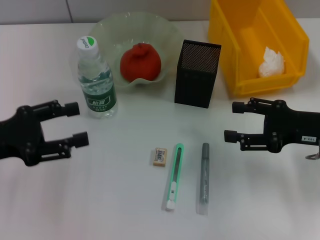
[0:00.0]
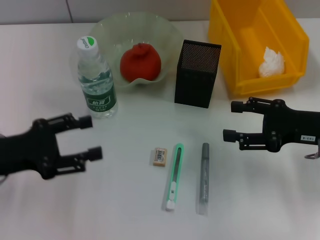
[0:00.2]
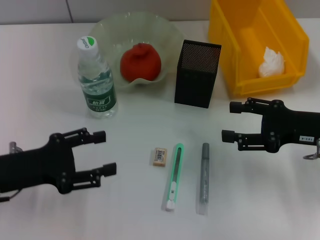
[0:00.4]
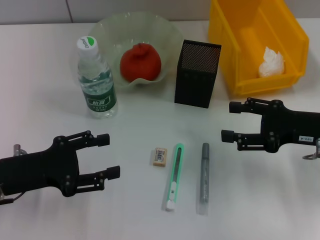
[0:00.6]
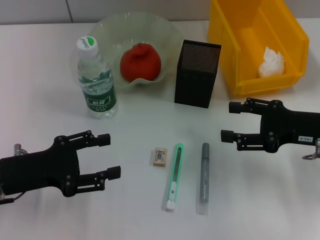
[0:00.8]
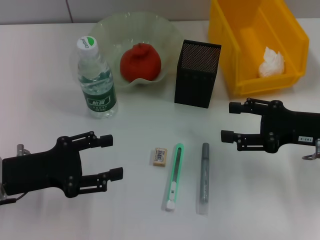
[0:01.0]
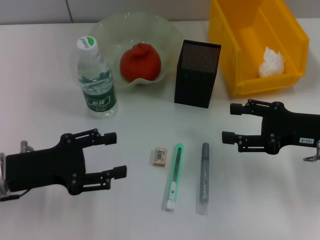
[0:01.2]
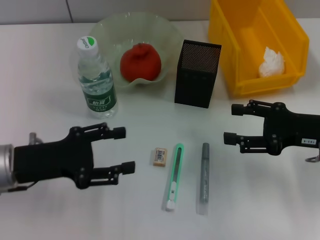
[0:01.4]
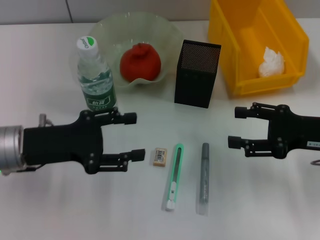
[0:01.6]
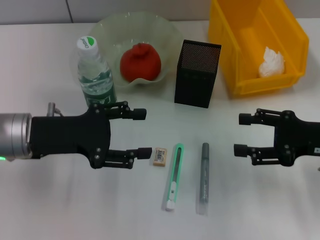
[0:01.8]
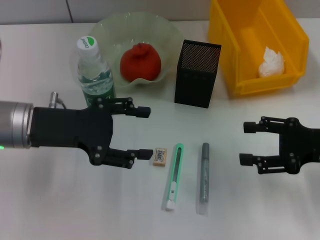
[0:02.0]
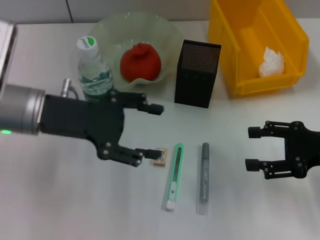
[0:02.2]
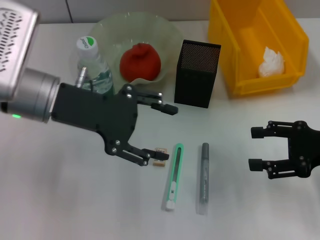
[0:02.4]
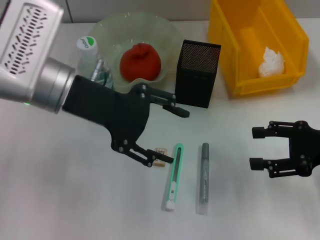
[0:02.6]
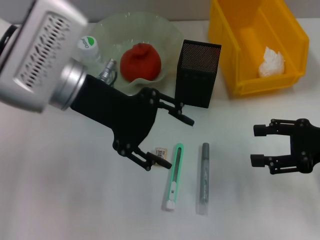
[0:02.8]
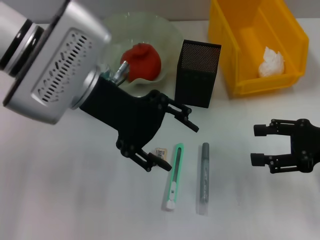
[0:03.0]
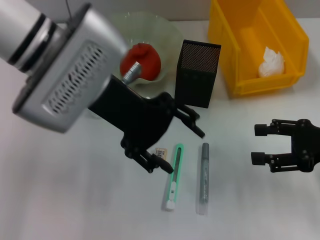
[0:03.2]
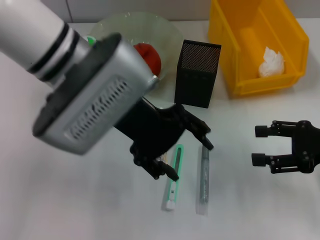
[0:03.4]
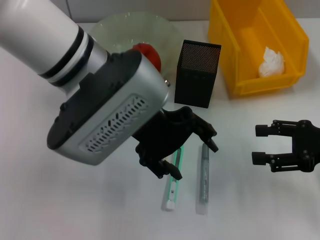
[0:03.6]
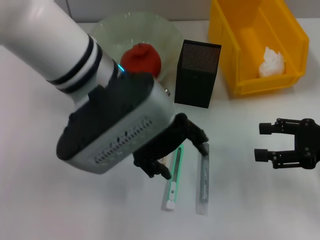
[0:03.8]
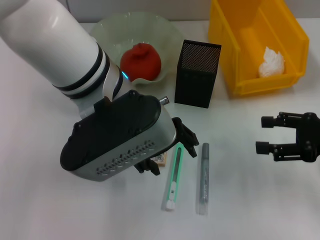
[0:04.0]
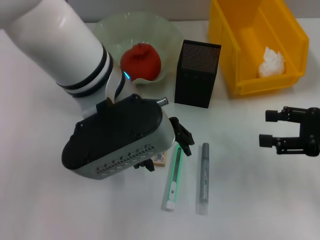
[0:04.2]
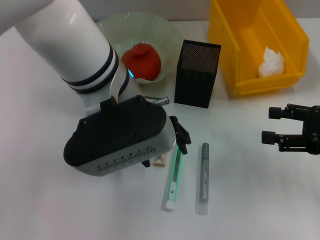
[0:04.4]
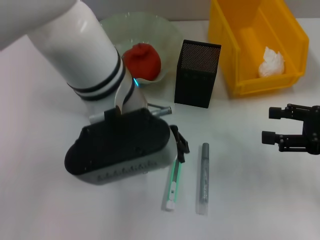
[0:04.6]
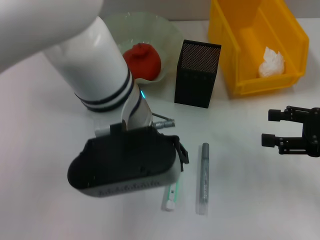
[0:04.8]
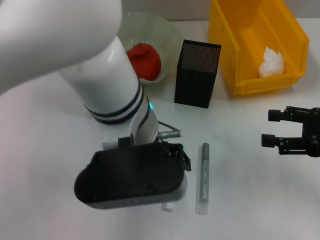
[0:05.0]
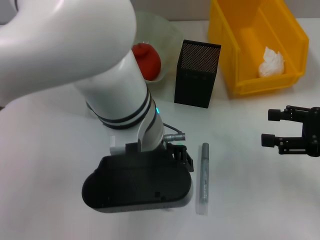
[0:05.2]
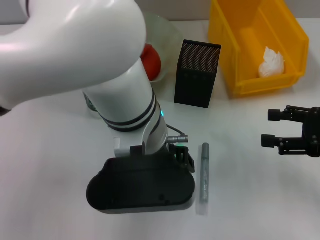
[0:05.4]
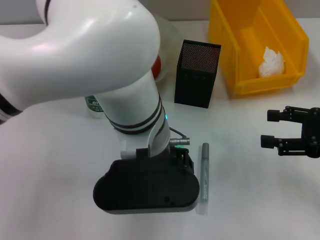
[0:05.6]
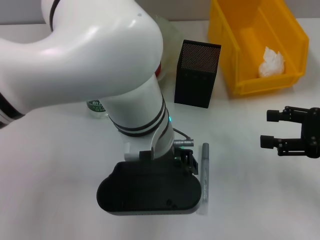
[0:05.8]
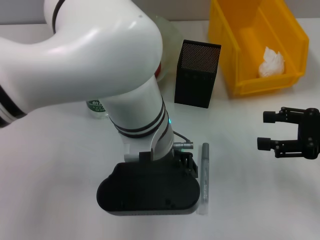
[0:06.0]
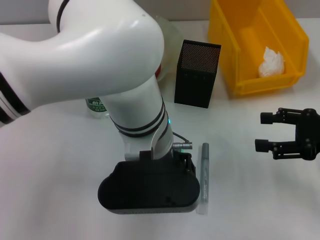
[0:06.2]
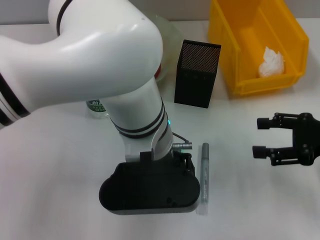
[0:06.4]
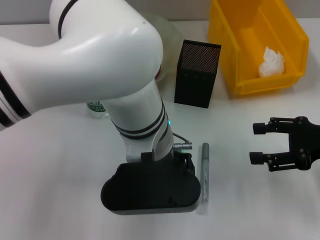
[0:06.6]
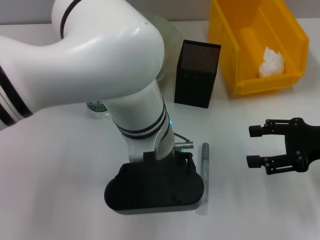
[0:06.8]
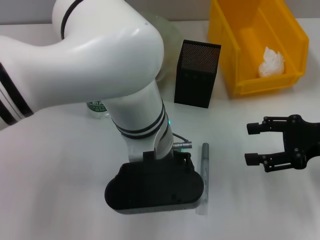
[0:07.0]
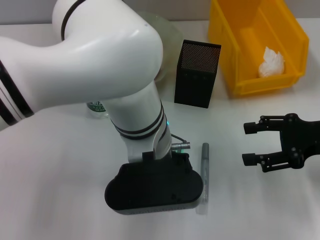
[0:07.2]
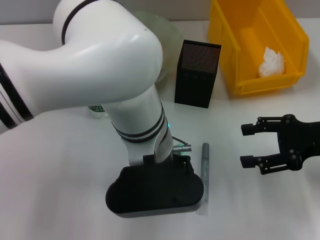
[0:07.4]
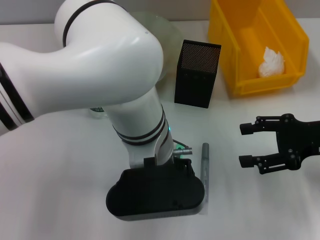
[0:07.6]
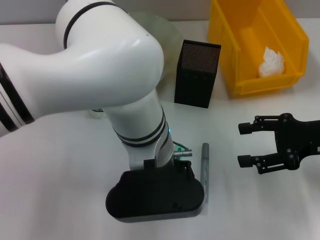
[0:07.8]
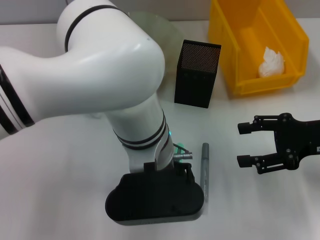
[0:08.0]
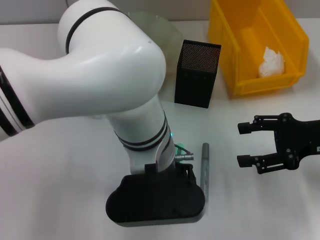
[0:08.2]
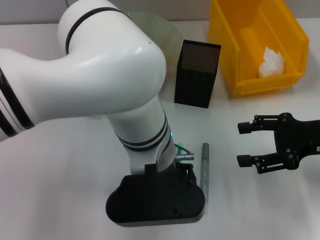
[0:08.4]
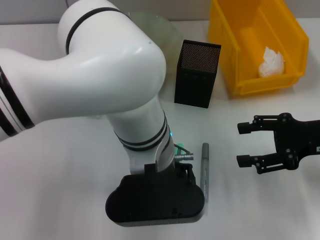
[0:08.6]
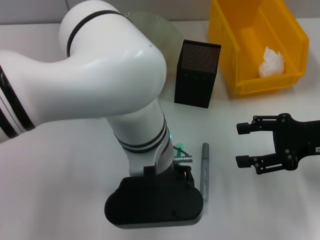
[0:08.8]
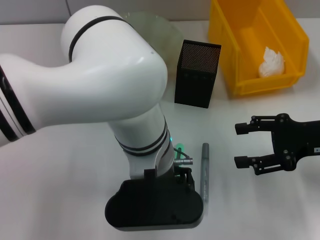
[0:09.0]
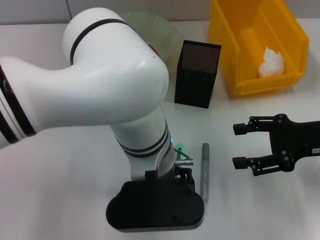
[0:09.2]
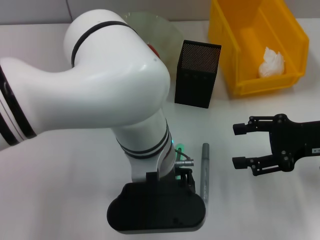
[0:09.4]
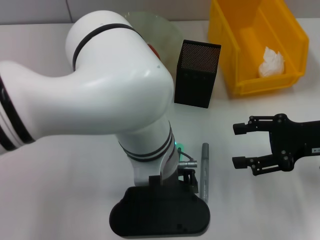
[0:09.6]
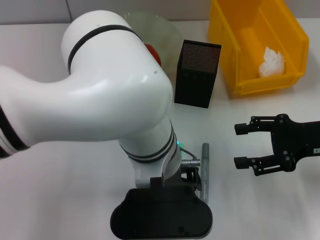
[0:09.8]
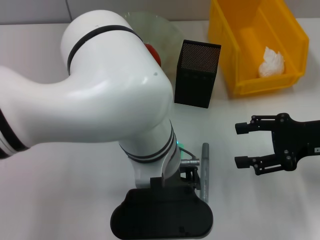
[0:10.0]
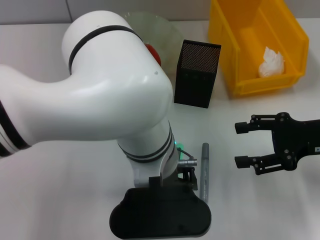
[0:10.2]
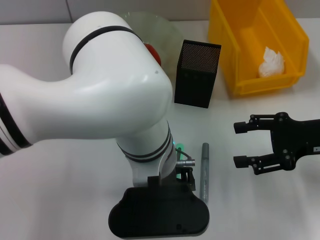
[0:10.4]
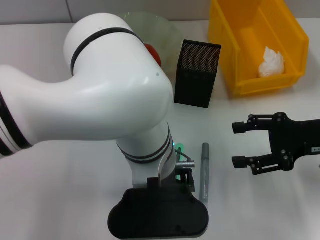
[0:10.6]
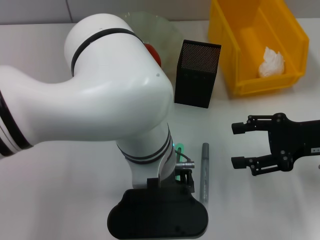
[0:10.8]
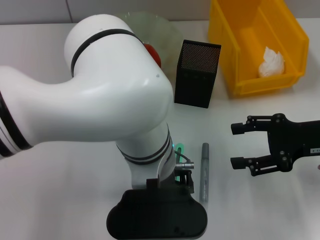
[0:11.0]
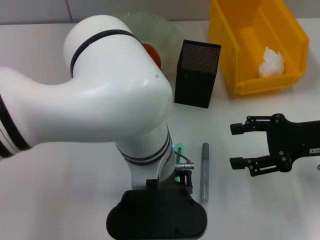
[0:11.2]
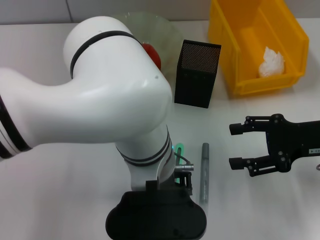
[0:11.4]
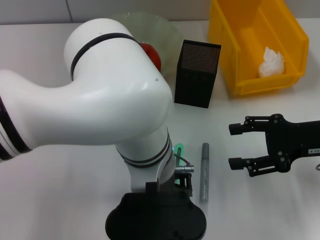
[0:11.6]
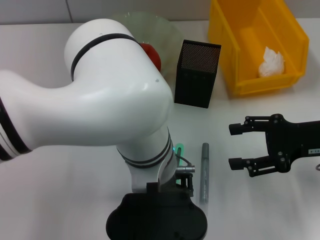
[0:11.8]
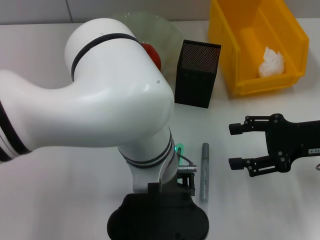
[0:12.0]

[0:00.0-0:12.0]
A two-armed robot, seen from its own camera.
0:00.0 to 0:01.6: The left gripper is displaced to the right by some 5 cm.
0:01.6 to 0:03.0: The left gripper shifts about 15 cm upward, to the right and forward.
0:03.0 to 0:04.4: The left gripper heads to the right, covering roughly 5 cm.
0:04.4 to 0:06.0: The left gripper shifts by about 5 cm.
0:10.4 to 0:12.0: Both grippers stay put.

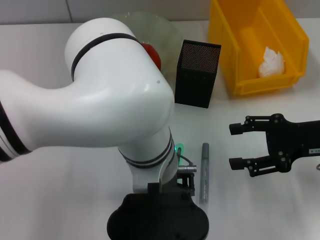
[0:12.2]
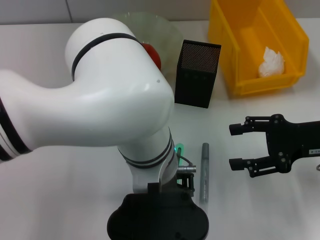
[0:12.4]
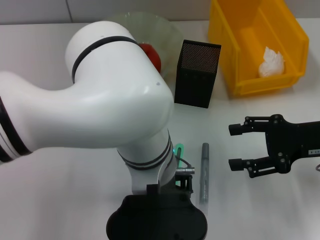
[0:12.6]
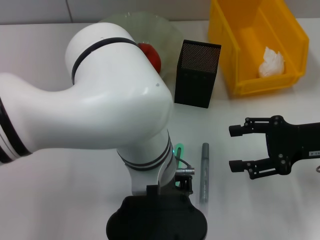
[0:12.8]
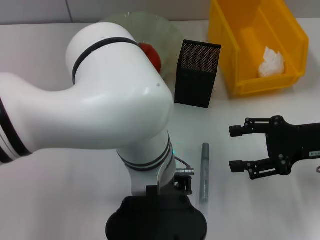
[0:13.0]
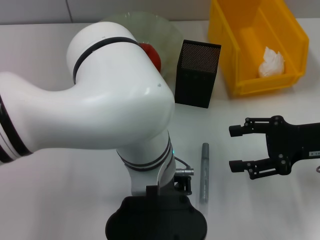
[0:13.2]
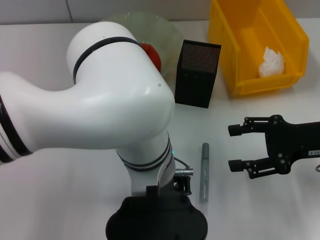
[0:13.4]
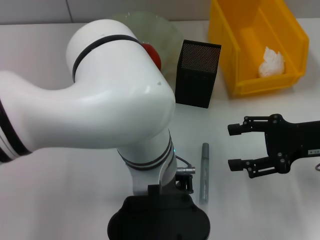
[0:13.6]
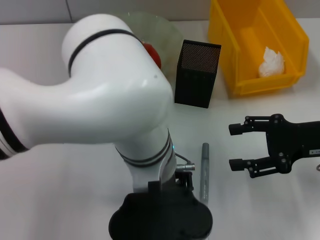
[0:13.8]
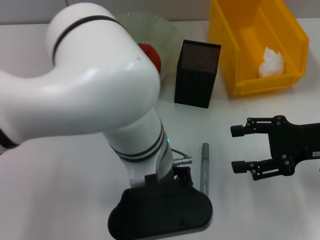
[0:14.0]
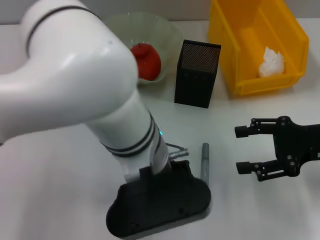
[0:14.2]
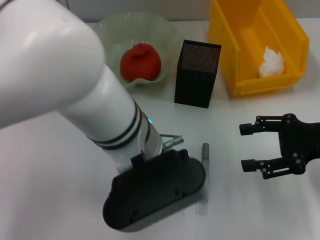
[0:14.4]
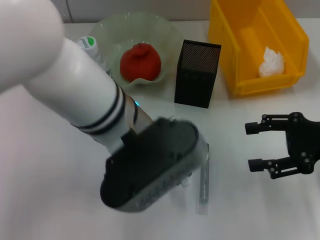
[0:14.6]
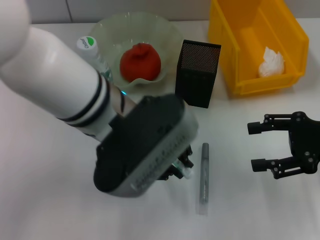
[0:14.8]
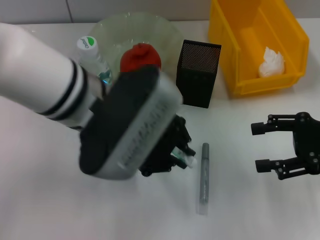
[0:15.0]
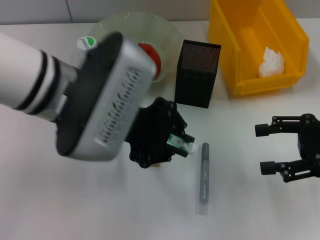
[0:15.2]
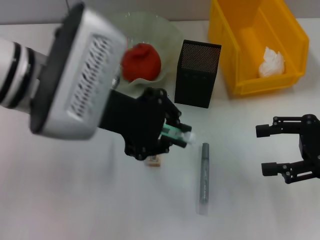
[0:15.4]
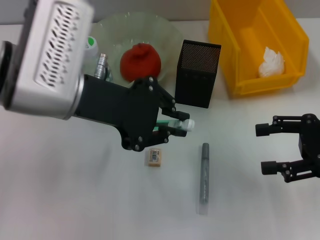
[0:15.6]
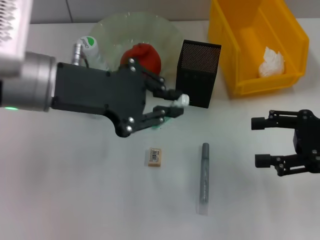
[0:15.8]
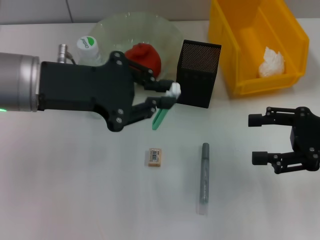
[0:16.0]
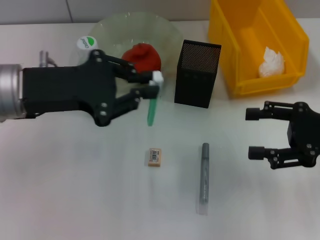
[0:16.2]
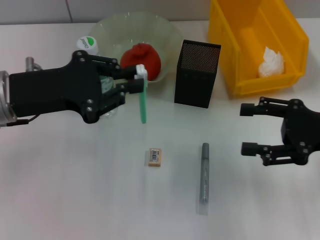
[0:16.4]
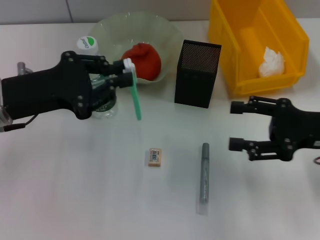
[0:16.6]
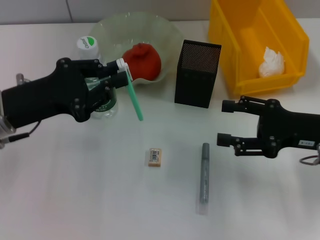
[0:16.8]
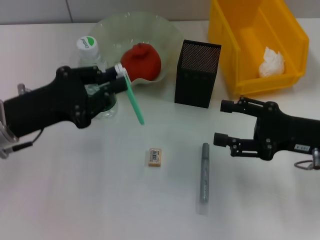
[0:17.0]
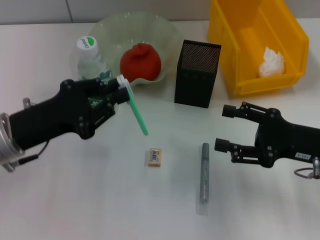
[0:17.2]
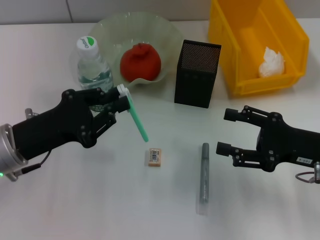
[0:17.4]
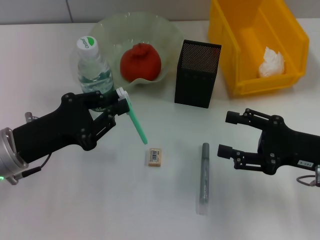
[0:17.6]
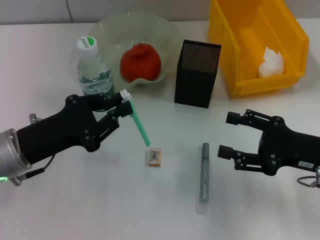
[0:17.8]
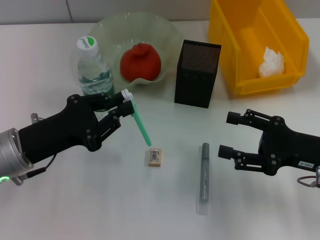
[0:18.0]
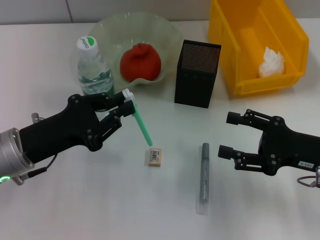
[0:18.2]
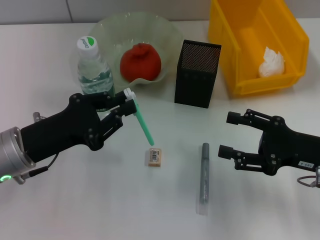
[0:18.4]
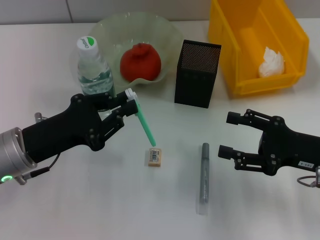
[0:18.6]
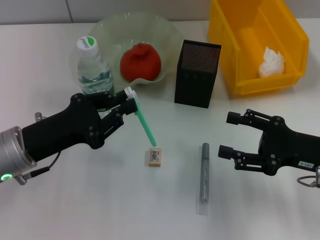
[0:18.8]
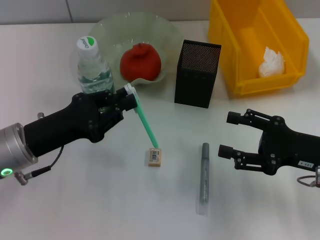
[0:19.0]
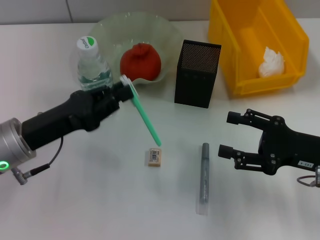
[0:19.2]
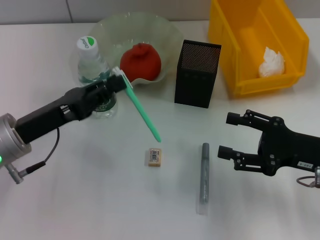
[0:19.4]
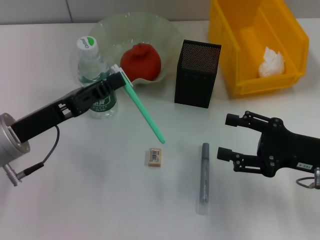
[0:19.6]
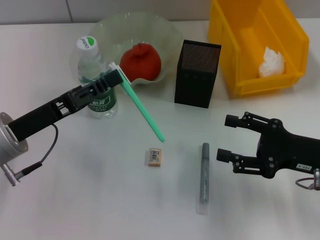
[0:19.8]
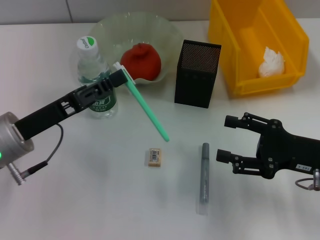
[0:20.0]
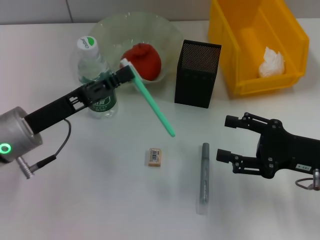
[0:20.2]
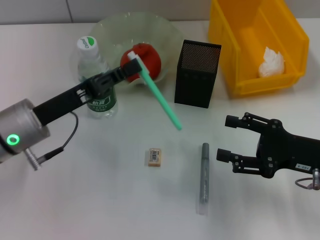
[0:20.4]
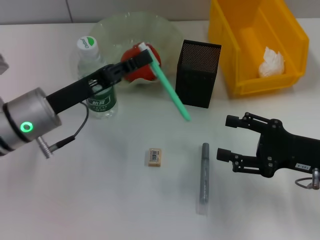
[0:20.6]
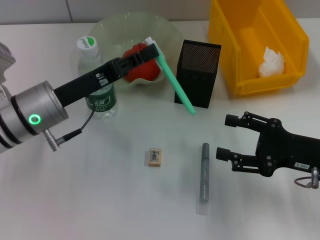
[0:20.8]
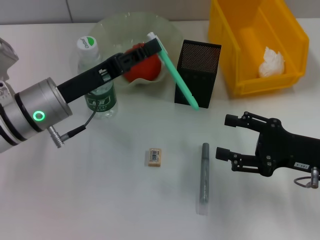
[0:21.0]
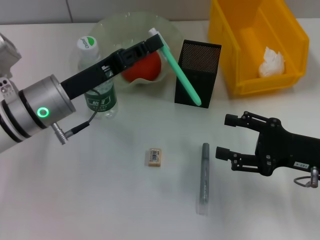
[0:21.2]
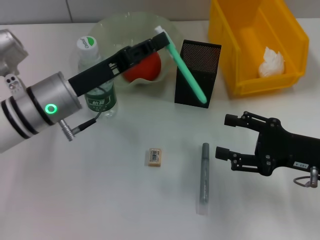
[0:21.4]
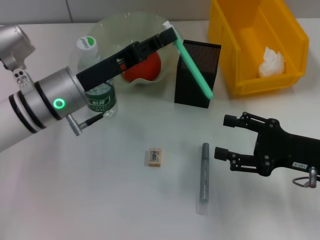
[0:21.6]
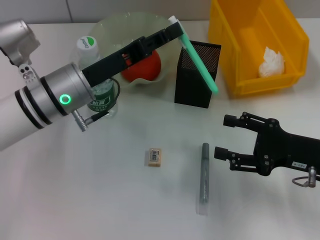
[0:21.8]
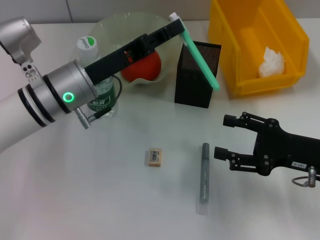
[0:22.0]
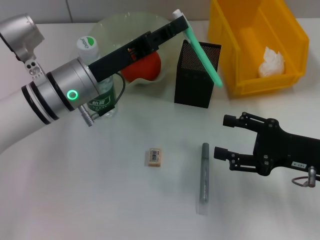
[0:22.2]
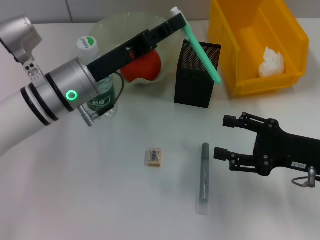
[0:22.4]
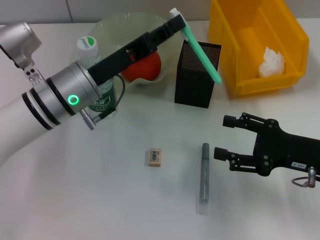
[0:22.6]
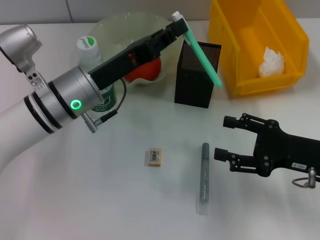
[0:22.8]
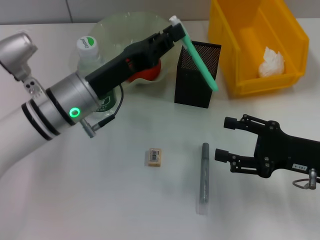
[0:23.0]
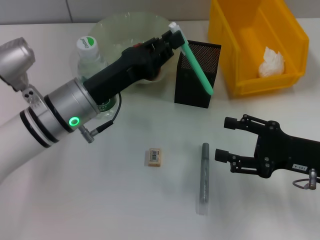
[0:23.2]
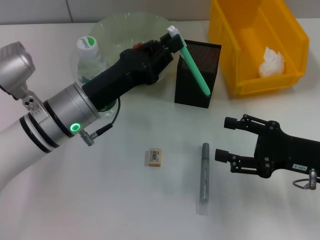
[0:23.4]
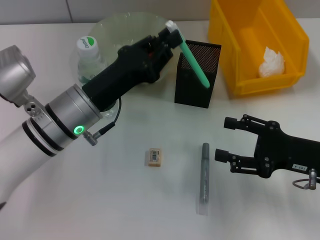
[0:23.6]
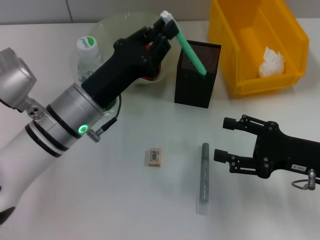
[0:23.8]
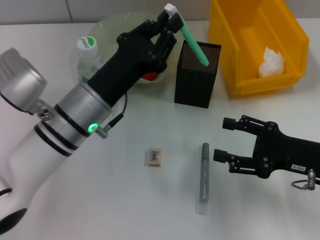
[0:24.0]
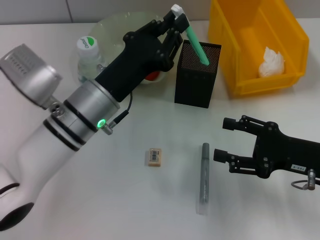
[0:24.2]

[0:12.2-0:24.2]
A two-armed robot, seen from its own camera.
0:12.2 to 0:13.8: The left gripper closes its fingers.
0:13.8 to 0:15.2: The left gripper shifts roughly 10 cm to the left and upward.
0:15.2 to 0:16.6: The left gripper moves to the left and downward, about 15 cm.
0:16.6 to 0:18.2: The left gripper moves downward, about 5 cm. The right gripper shifts by approximately 5 cm.
0:19.8 to 0:21.2: The left gripper is displaced to the right and forward by roughly 10 cm.
0:21.2 to 0:22.6: The grippers move only a little.
